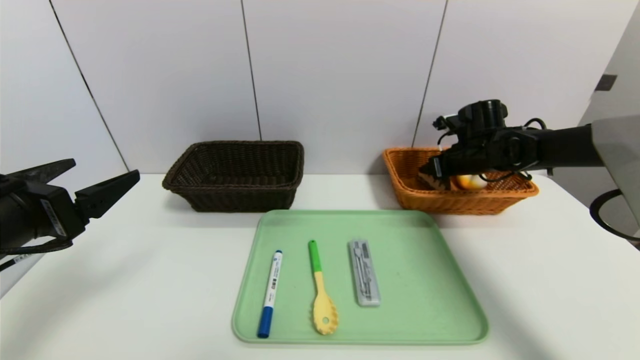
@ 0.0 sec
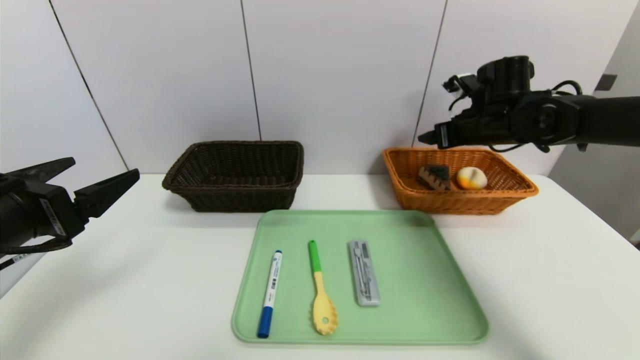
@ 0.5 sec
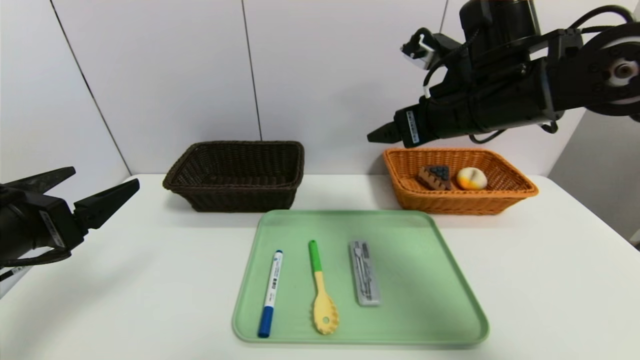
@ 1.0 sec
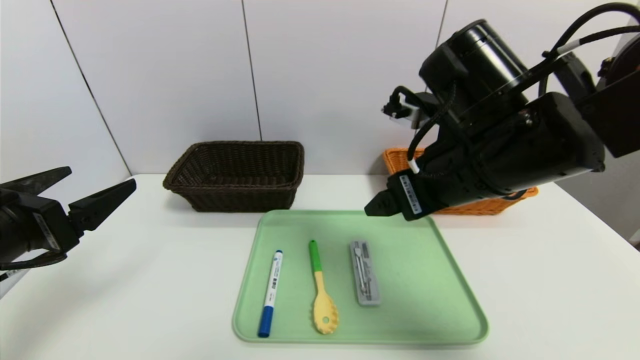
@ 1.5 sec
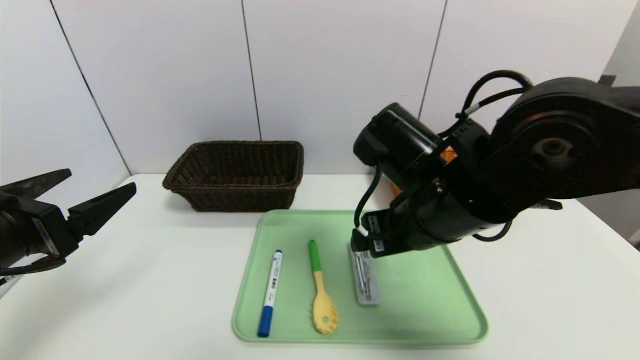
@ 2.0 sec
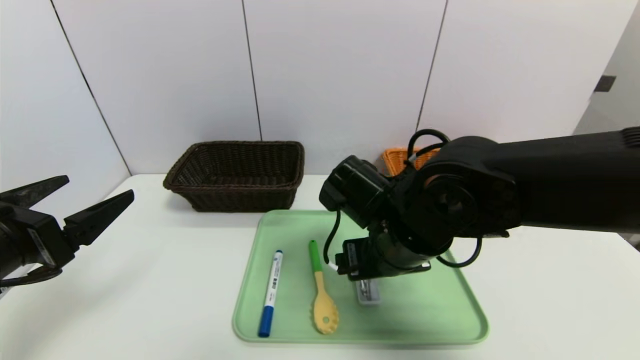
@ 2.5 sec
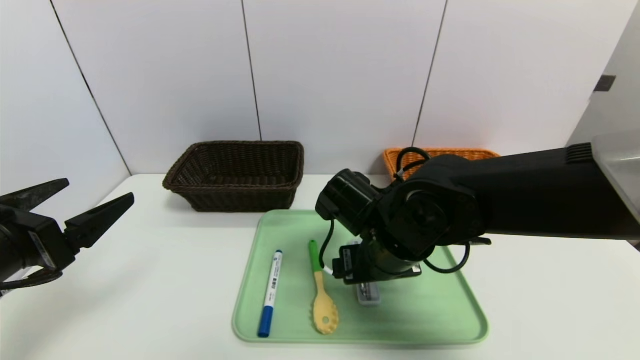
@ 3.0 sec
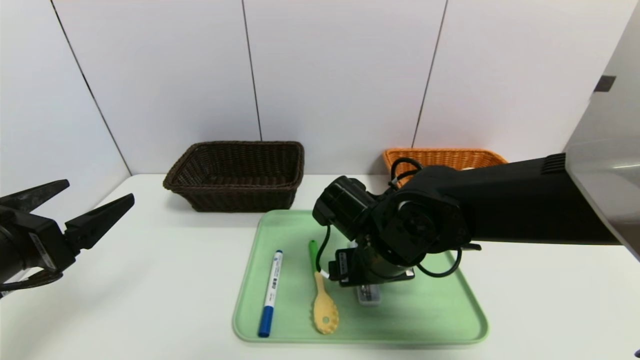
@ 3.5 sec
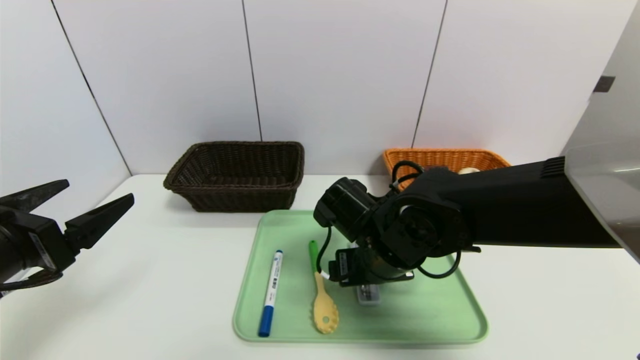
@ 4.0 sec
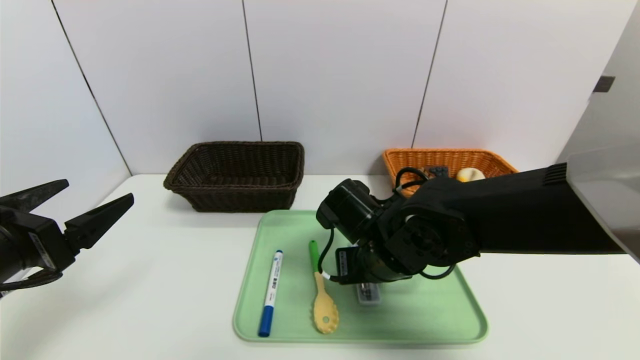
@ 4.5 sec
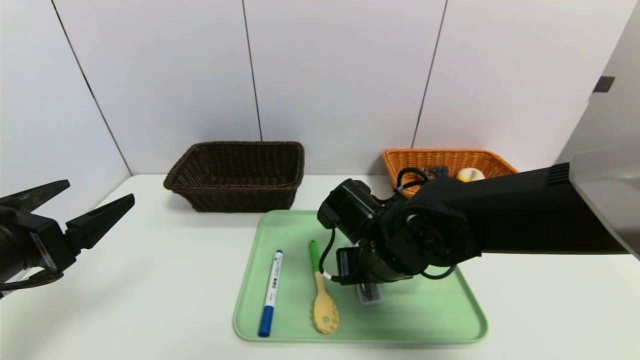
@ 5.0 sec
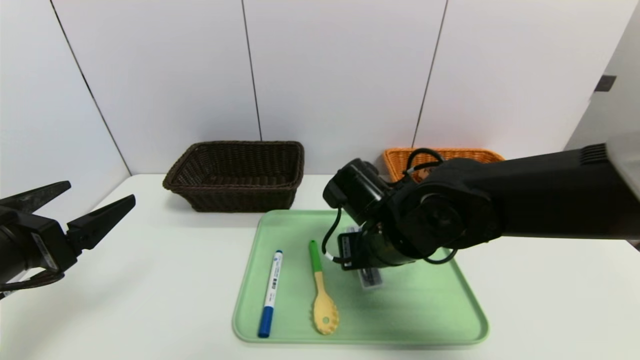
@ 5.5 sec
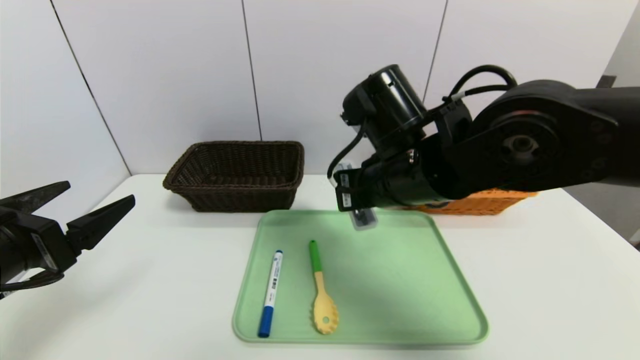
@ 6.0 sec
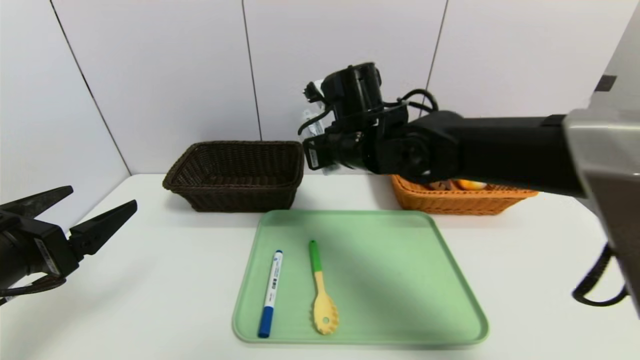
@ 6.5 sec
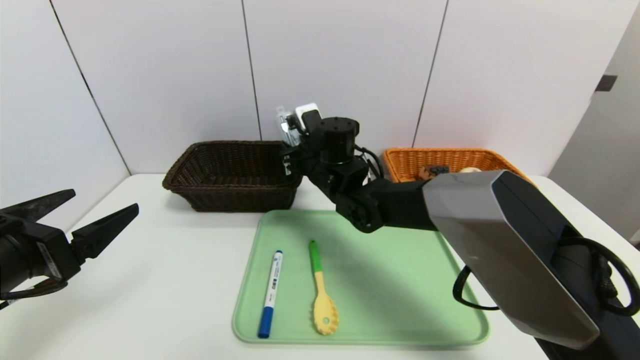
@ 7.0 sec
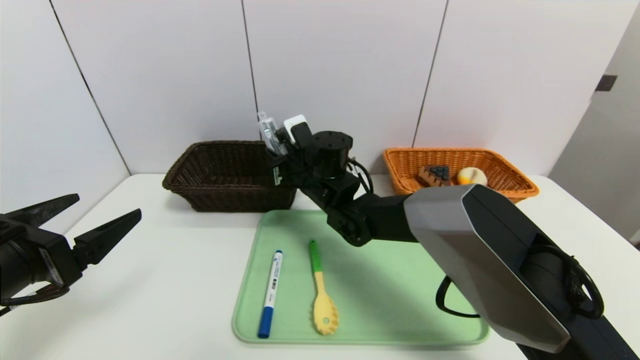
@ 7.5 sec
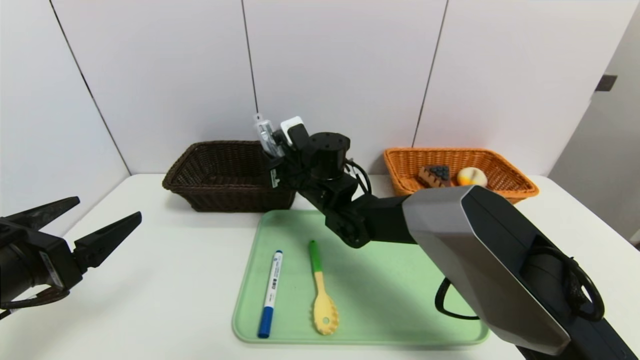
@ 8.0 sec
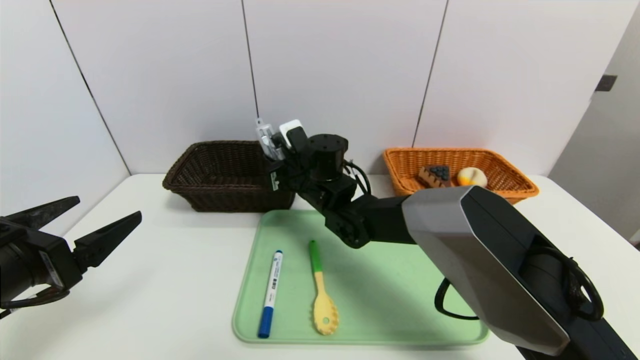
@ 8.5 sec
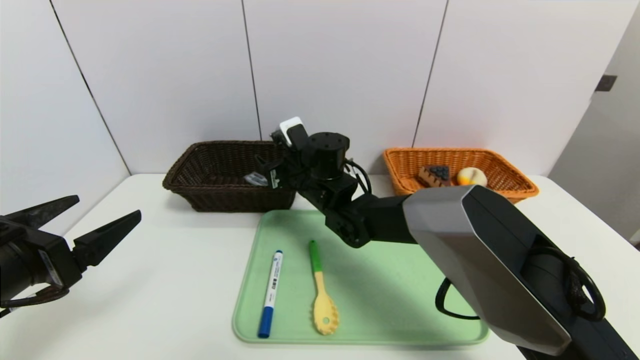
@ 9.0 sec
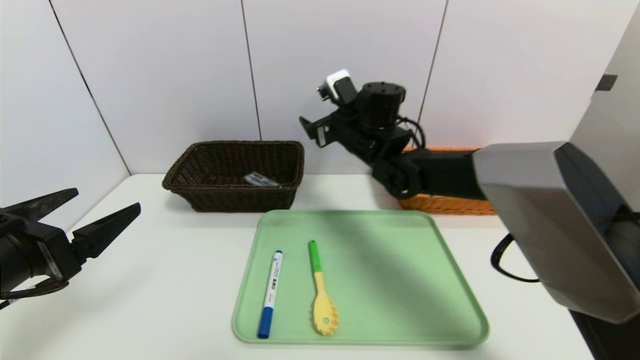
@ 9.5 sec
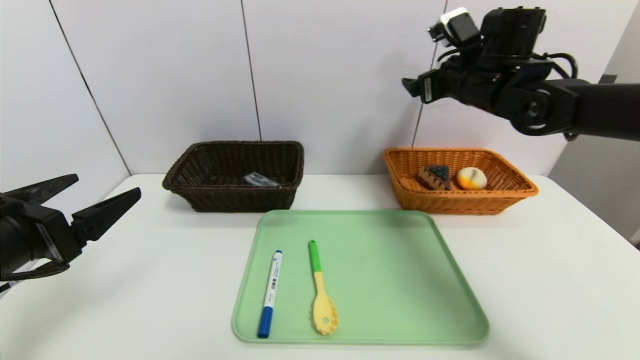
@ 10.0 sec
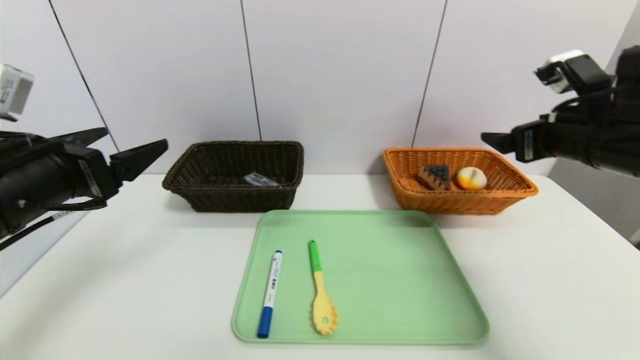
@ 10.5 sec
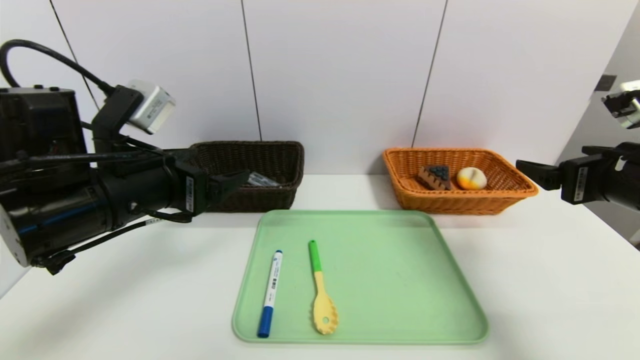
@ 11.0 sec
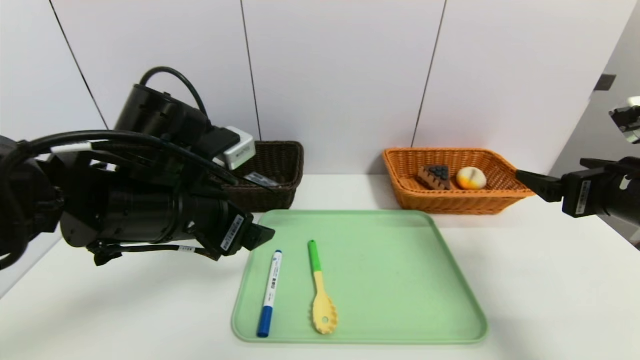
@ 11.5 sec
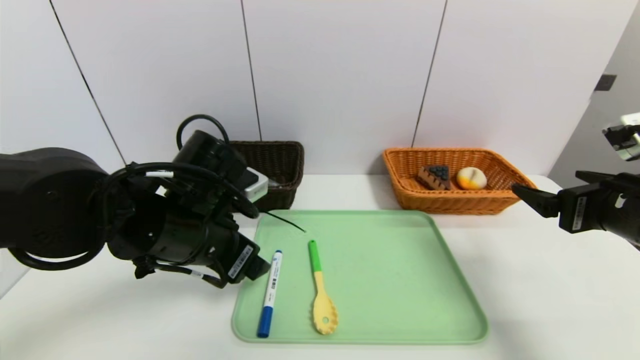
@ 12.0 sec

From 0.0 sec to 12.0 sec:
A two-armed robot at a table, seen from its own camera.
Task of the whole recording: place the food in the right basket with the right gripper, and place the non food items in the left basket with the left gripper.
From 0.0 sec to 2.0 sec: The right gripper goes about 30 cm backward and to the left.
From 2.0 sec to 4.0 sec: The right gripper shifts approximately 10 cm downward.
From 4.0 sec to 6.0 sec: The right gripper heads upward, covering approximately 10 cm, and closes its fingers.
From 6.0 sec to 8.0 sec: The right gripper shifts some 20 cm forward, to the left and downward.
From 8.0 sec to 10.0 sec: The right gripper heads to the right and upward, covering approximately 30 cm, and opens up.
From 10.0 sec to 12.0 sec: The left gripper travels to the right and forward by approximately 15 cm; the right gripper heads backward and to the right, covering some 25 cm.

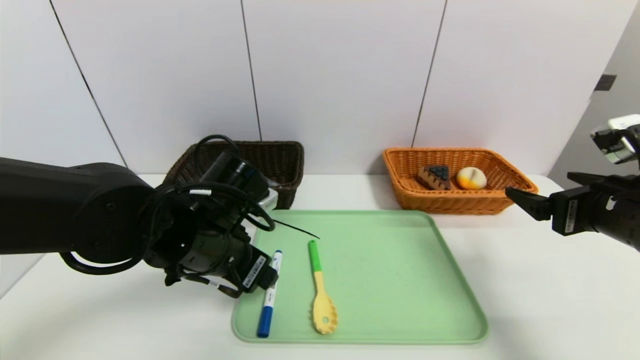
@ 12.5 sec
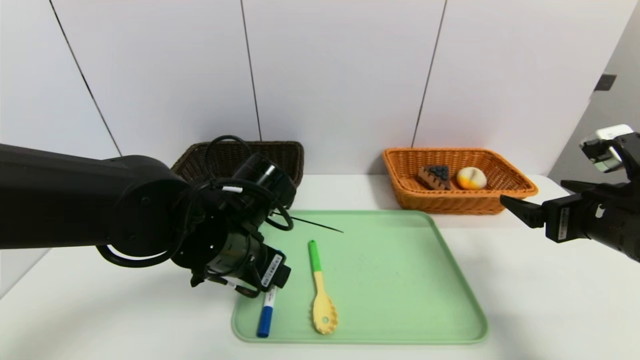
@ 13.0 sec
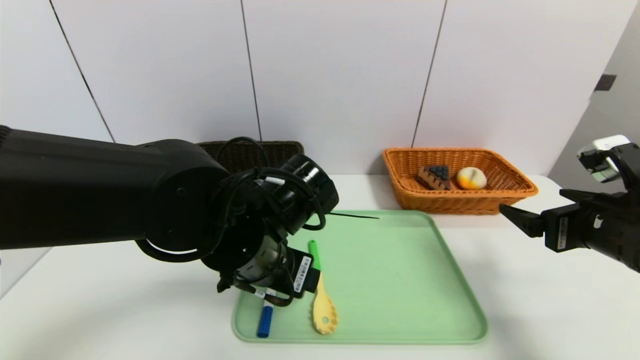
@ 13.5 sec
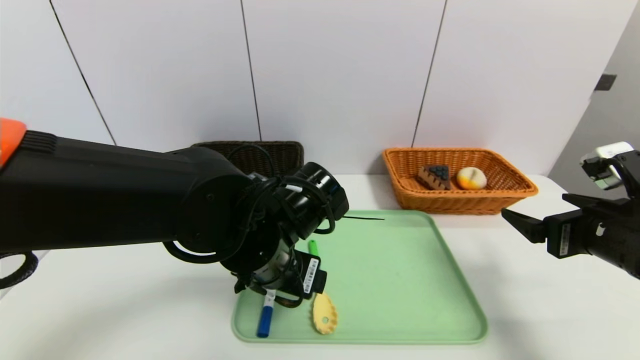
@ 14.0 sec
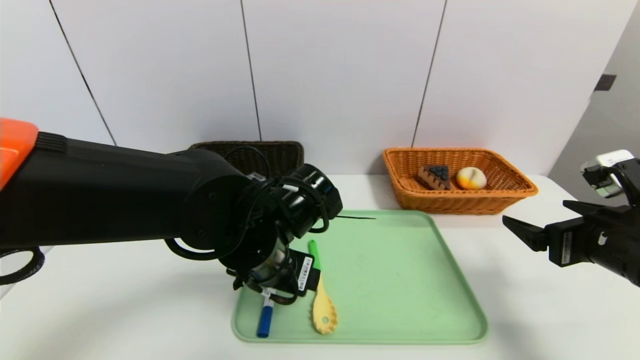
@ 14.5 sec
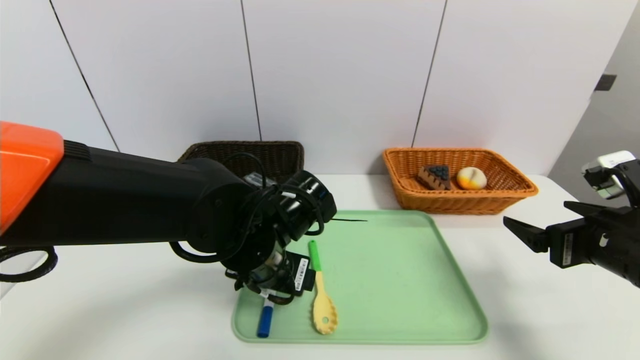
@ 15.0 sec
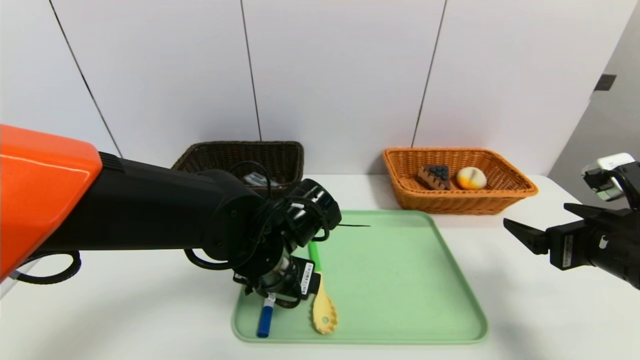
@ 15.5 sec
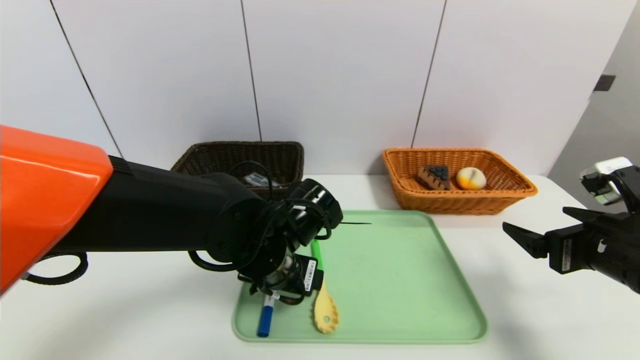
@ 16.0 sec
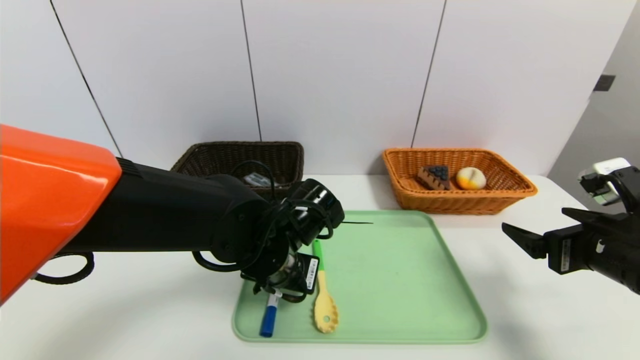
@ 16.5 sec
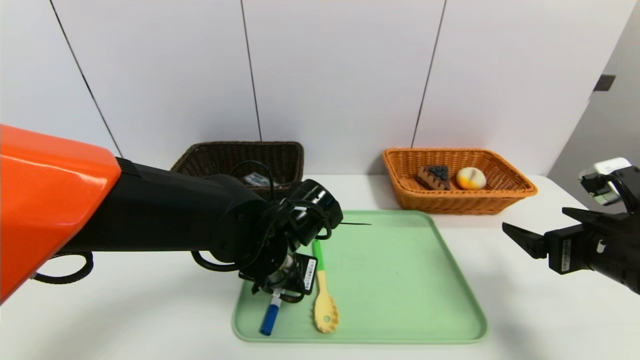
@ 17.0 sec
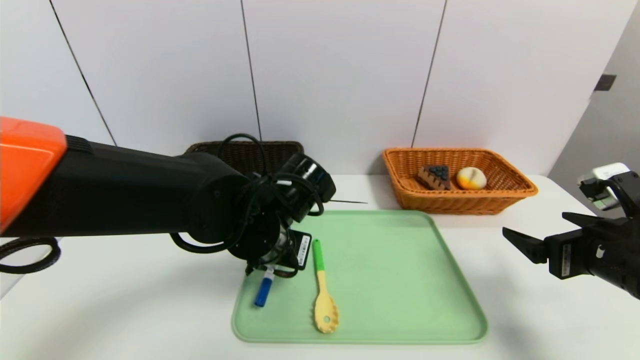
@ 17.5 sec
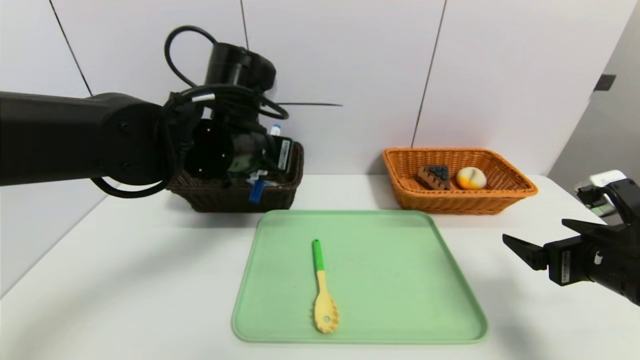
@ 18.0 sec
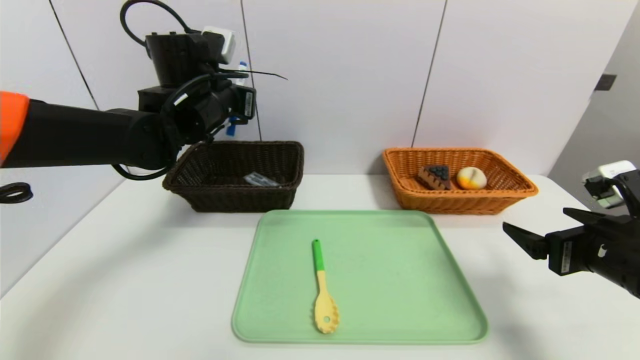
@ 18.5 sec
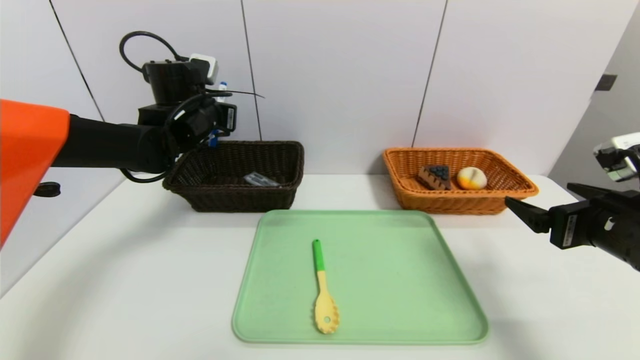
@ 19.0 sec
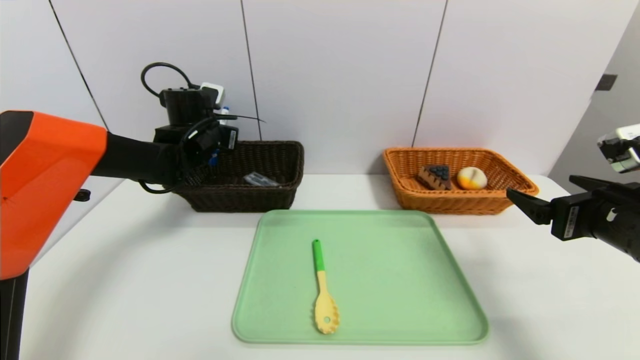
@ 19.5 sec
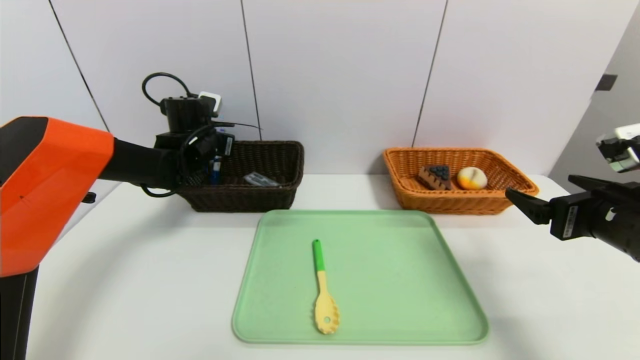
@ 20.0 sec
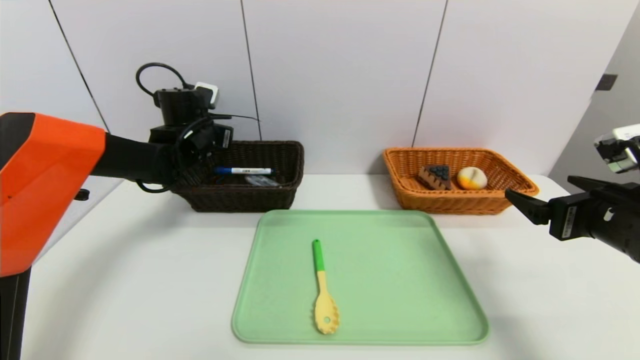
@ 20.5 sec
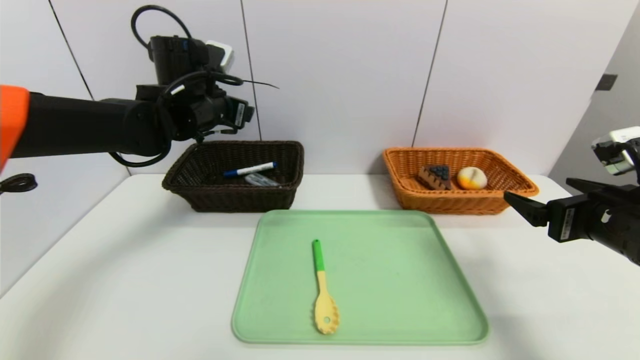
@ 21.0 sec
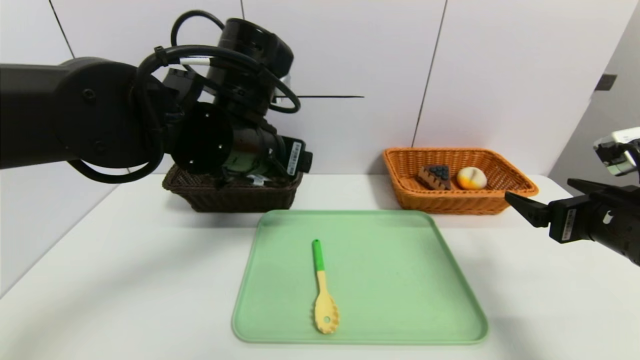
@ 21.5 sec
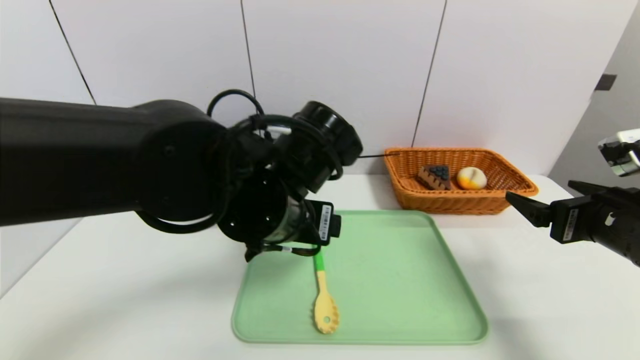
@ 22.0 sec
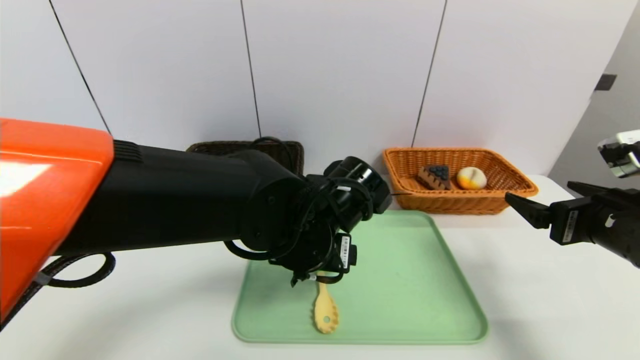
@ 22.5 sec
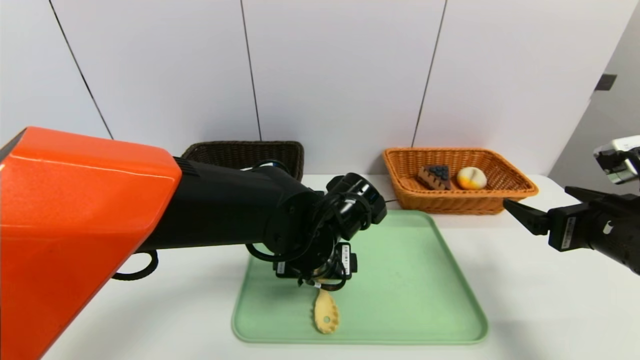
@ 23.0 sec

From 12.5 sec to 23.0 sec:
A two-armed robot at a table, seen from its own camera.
Task of the whole recording: place the food in the right basket with the right gripper, and place the non food items in the left basket with the left gripper.
Step, from 12.5 sec to 20.5 sec: Grasp the blue marker and put it in the left basket.
From 12.5 sec to 14.5 sec: The left gripper moves to the right, some 5 cm.
From 14.5 sec to 16.5 sec: The left gripper closes.
From 16.5 sec to 19.0 sec: The left gripper travels forward, to the left and upward by about 25 cm, and closes its fingers.
From 19.0 sec to 21.0 sec: The left gripper reaches about 5 cm downward, then returns, and opens.
From 21.0 sec to 23.0 sec: The left gripper heads to the right, backward and downward, covering approximately 25 cm.
